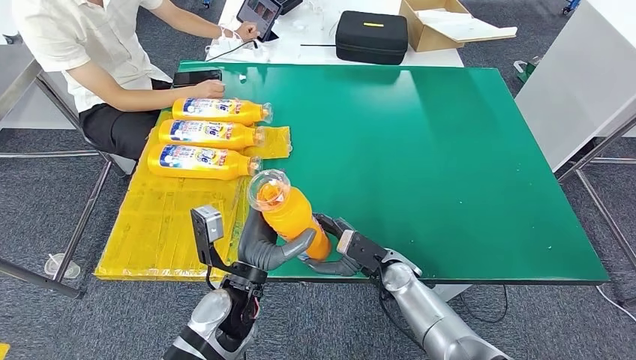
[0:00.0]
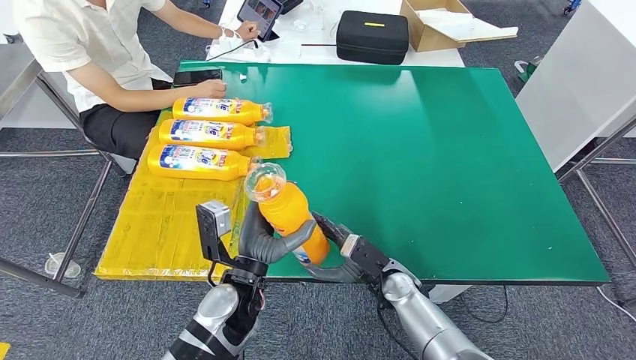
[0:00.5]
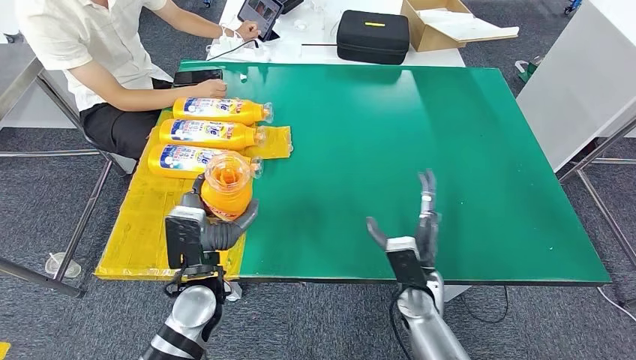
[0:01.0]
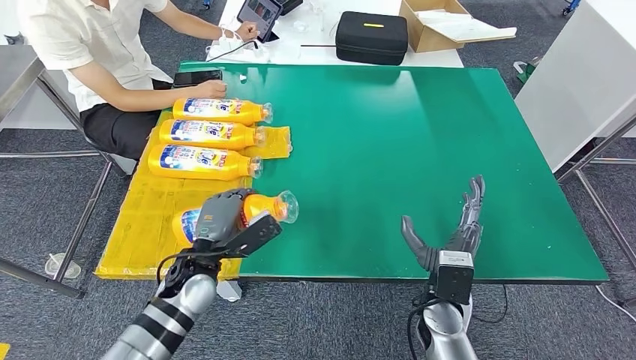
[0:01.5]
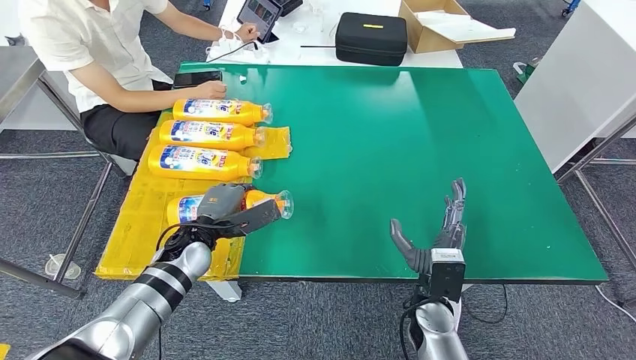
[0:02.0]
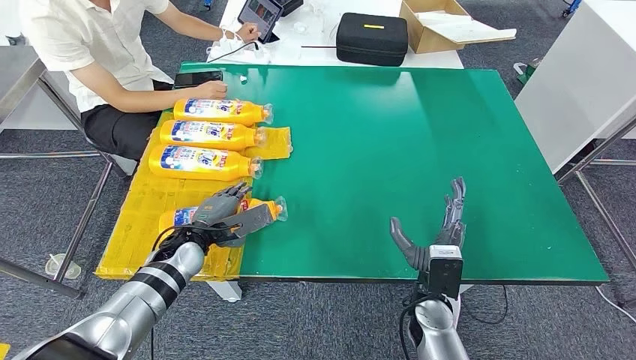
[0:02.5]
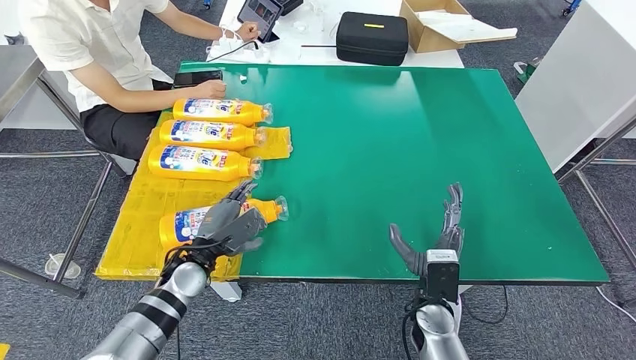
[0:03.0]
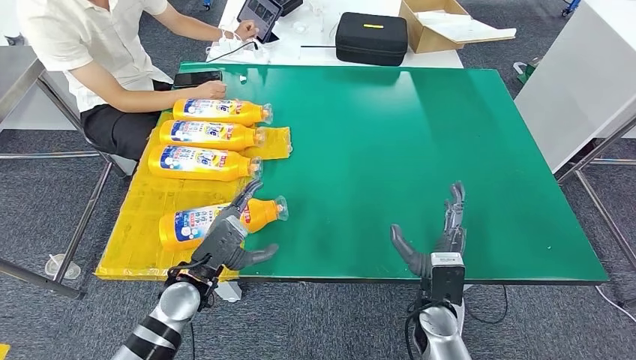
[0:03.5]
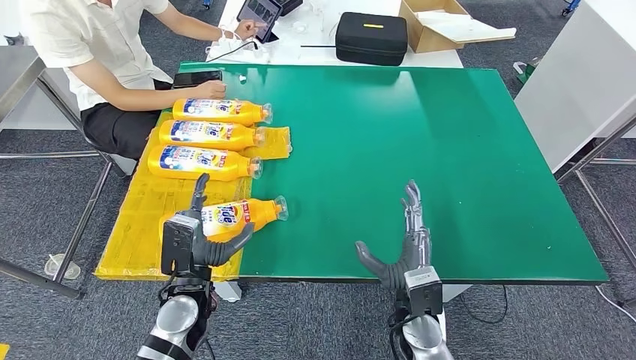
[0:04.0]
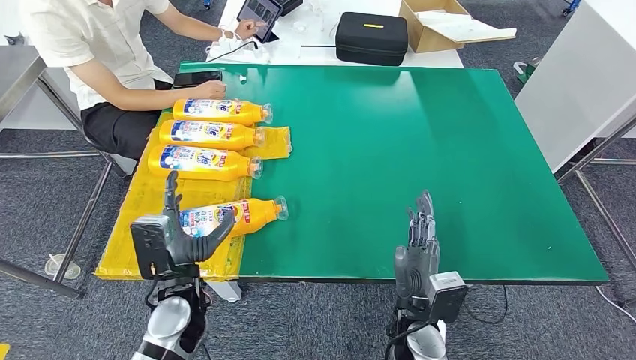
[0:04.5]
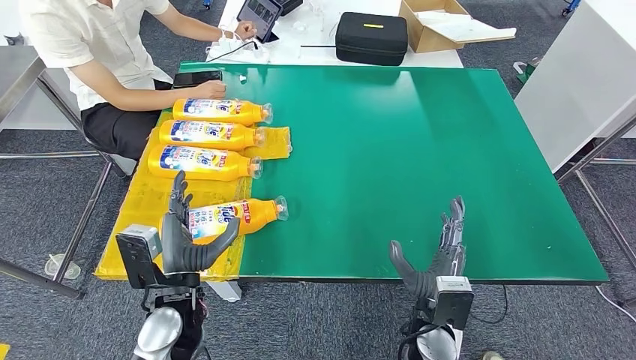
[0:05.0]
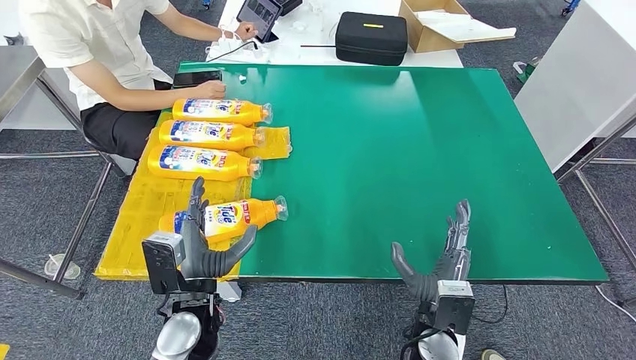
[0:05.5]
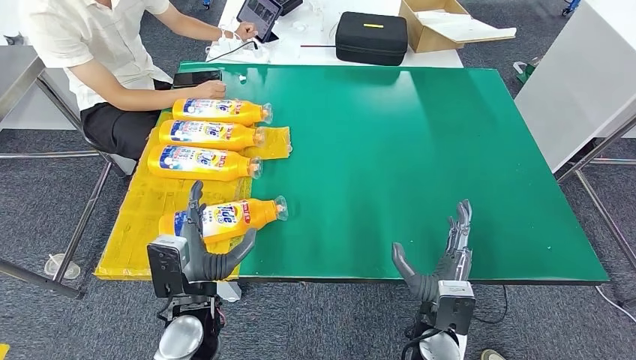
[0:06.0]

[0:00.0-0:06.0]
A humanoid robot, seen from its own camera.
Step, 0:00.0 to 0:06.0: Flip the fast-moving consumer goods bottle to the front side.
0:00.0 to 0:02.0: The left hand is displaced to the left and forward by some 15 cm. Meanwhile the right hand moves backward, approximately 5 cm.
0:02.0 to 0:04.0: The left hand travels backward by about 10 cm.
0:04.0 to 0:06.0: There are only small adjustments of the hands.
